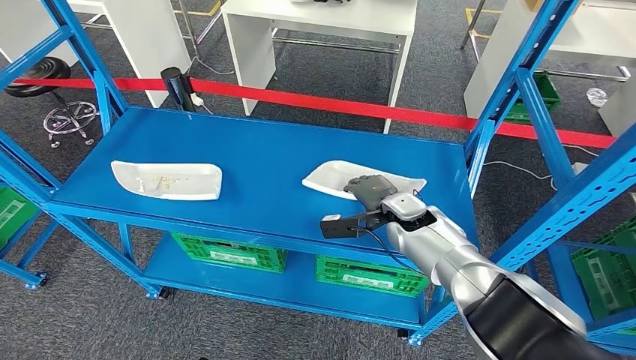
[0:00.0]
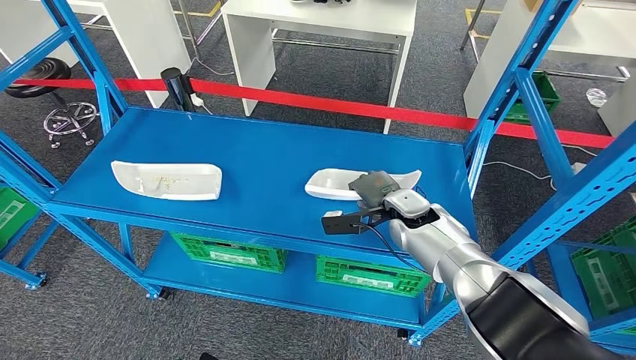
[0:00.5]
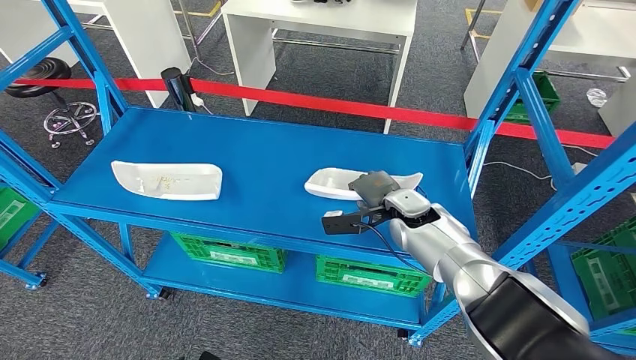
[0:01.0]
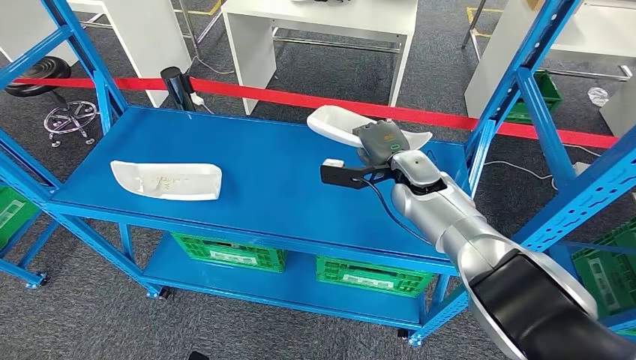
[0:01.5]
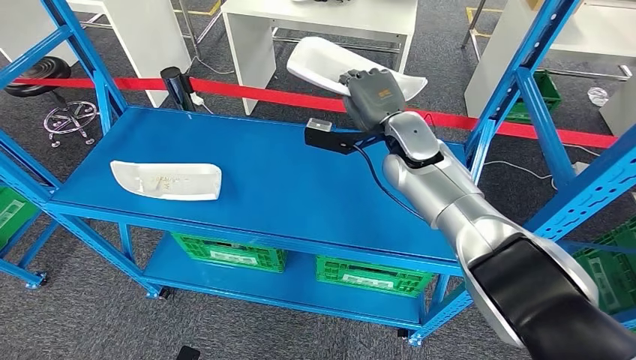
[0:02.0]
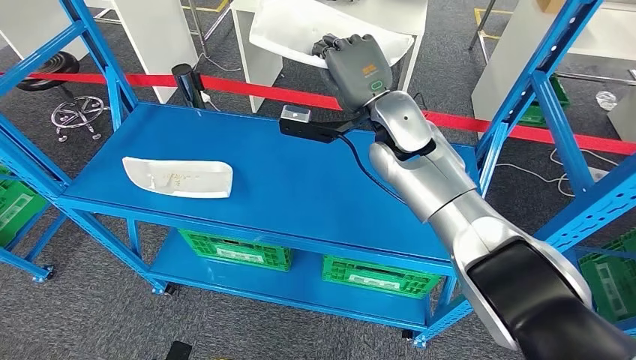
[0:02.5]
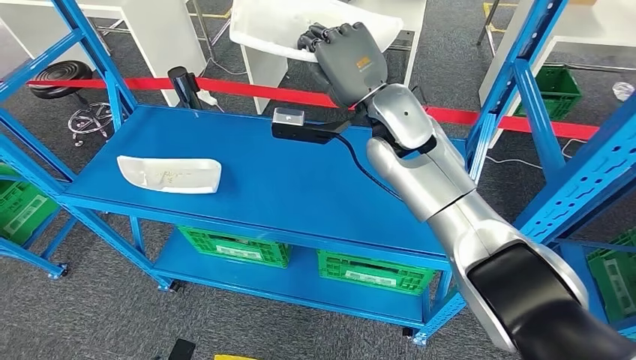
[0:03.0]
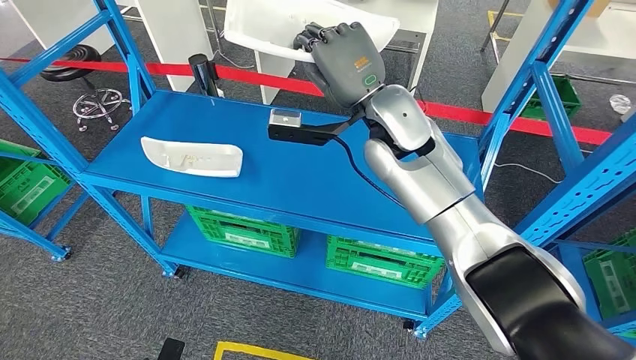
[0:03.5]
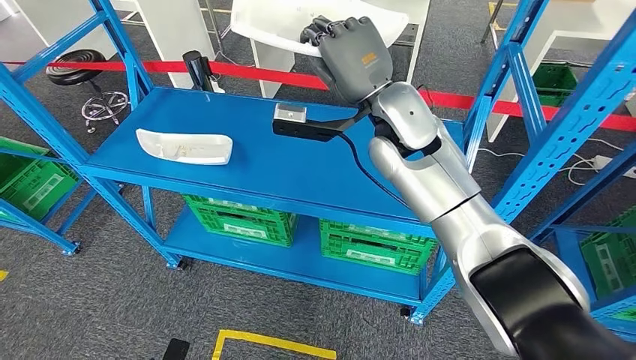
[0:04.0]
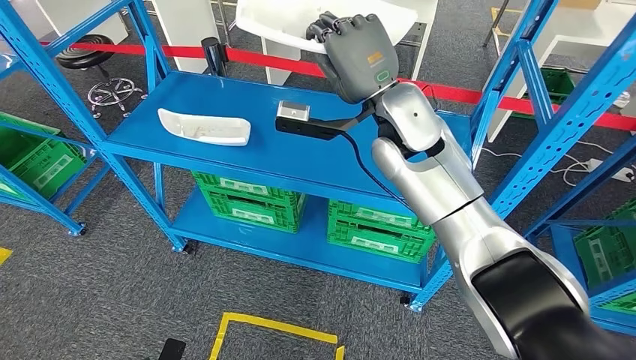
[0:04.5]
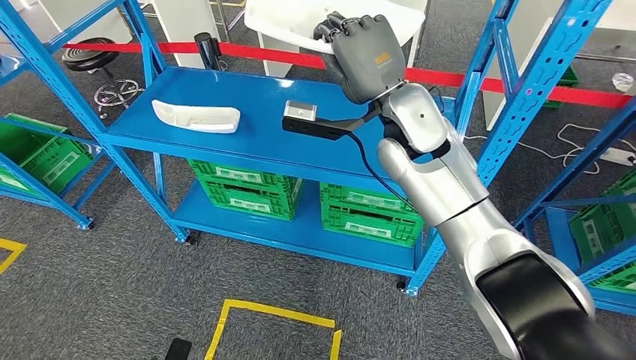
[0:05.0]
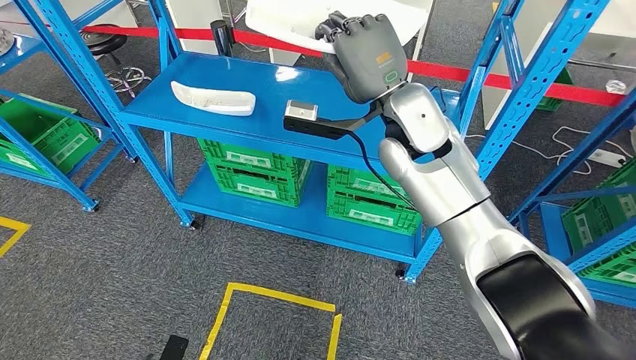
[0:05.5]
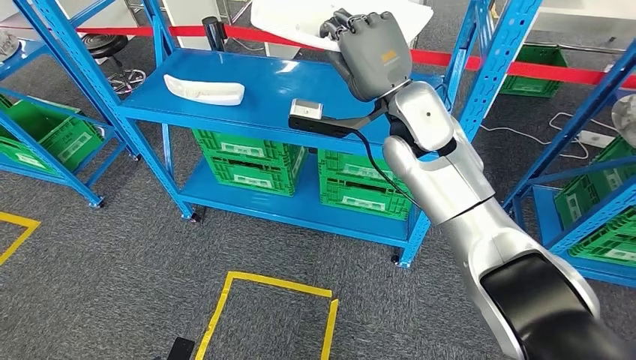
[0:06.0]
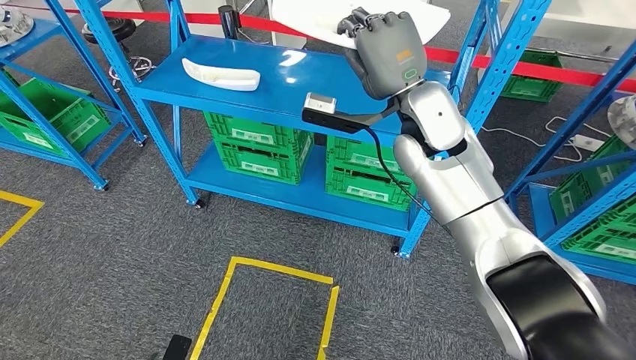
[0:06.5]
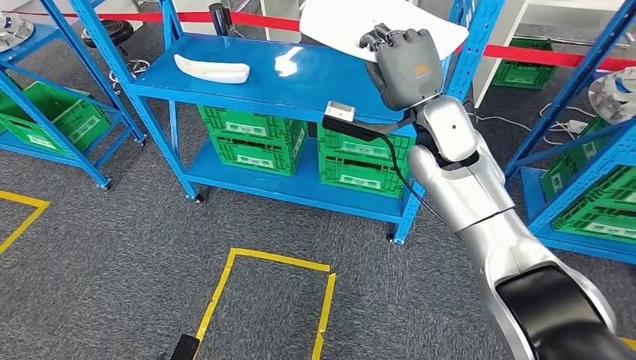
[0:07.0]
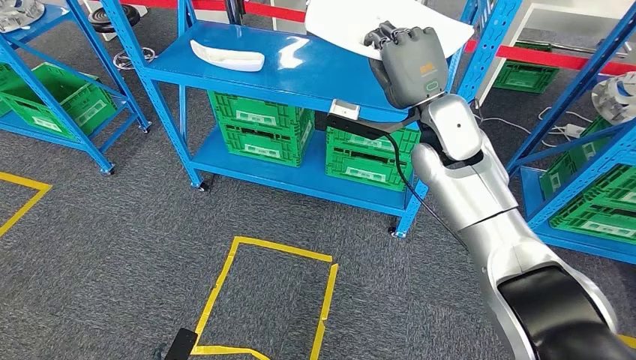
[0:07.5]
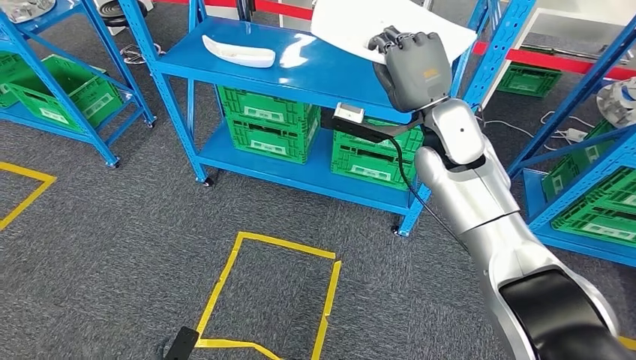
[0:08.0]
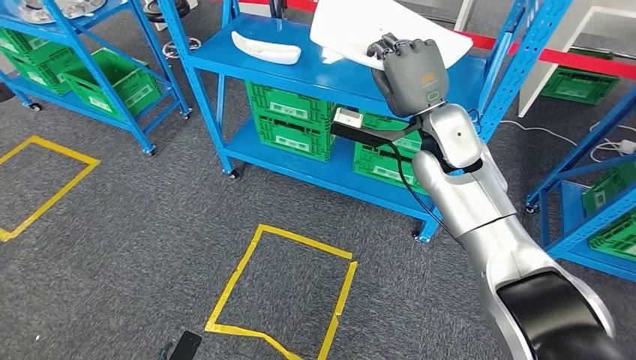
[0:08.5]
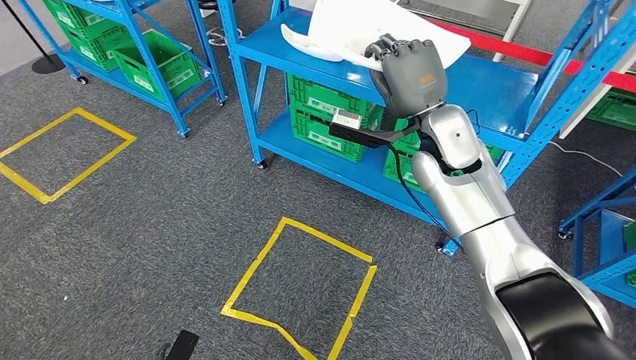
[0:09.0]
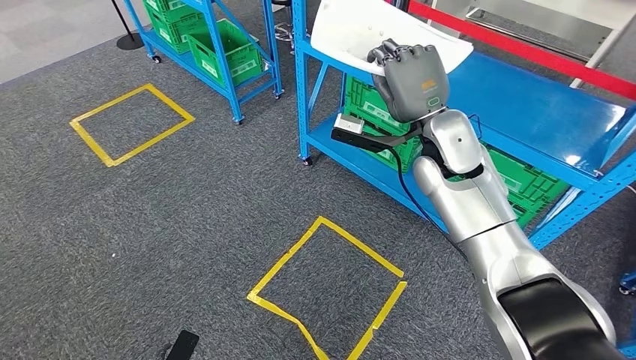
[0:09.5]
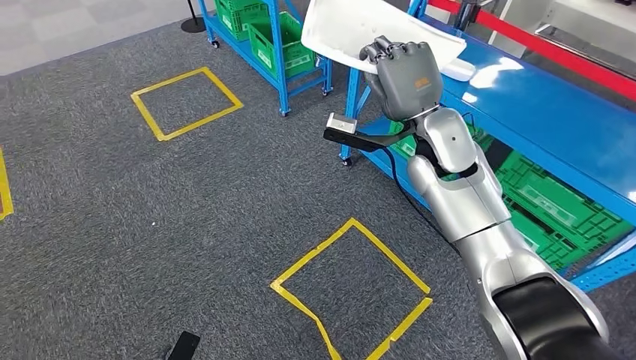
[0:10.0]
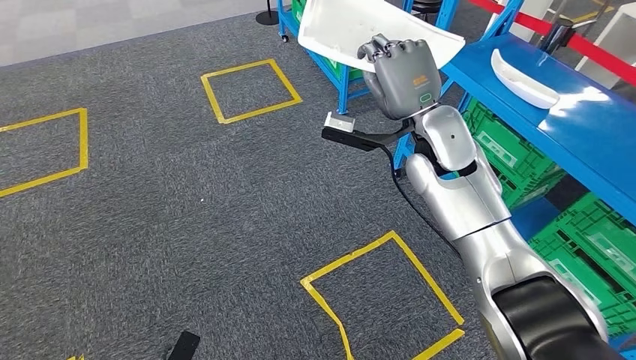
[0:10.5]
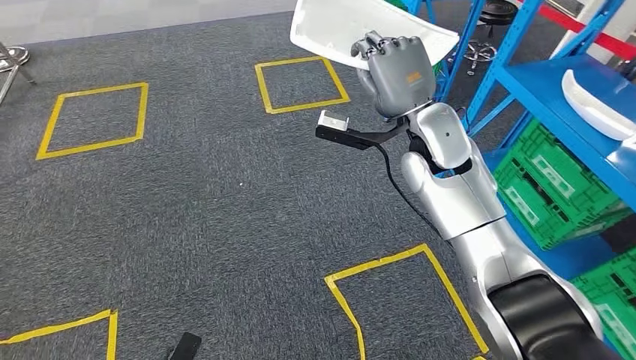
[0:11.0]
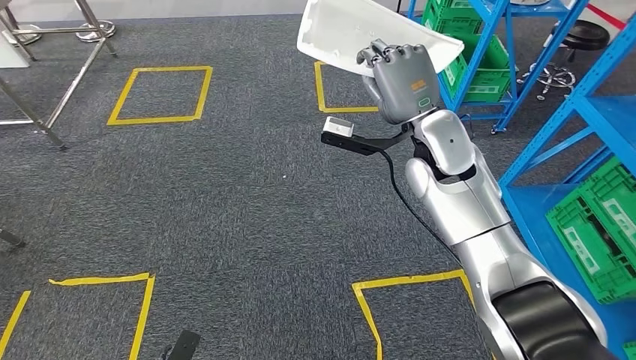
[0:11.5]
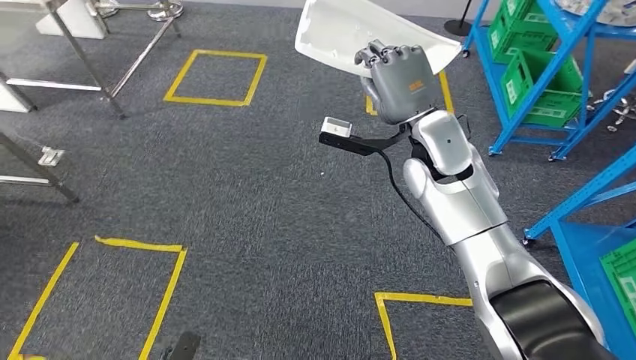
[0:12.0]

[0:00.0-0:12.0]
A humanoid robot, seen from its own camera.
Step, 0:00.0 to 0:02.0: Pick up the small component from the shelf.
0:00.0 to 0:02.0: The right hand shifts approximately 15 cm upward and forward.

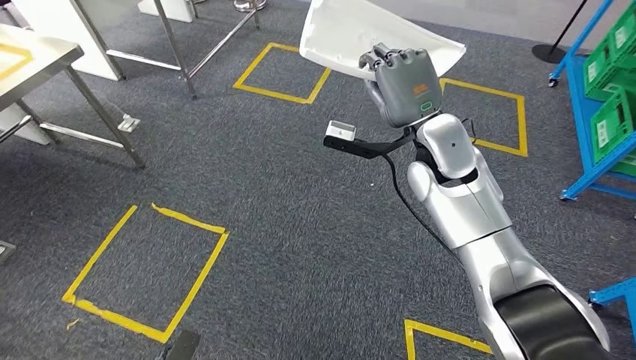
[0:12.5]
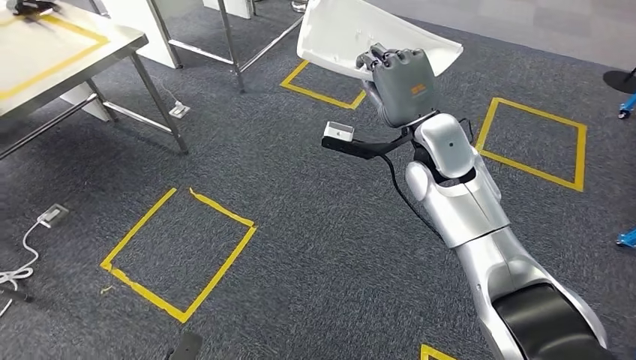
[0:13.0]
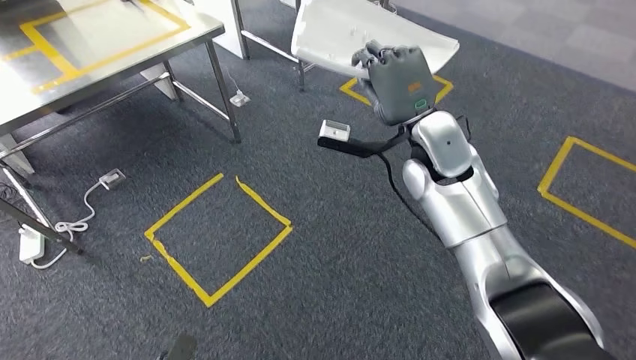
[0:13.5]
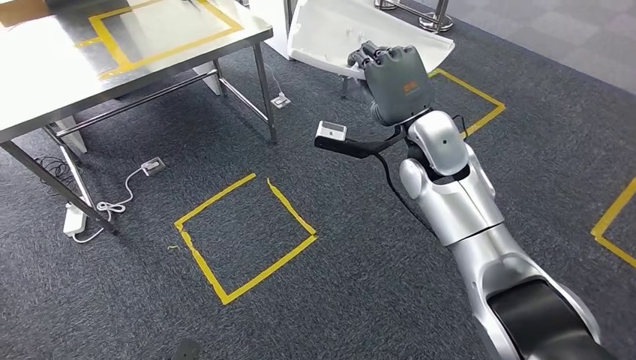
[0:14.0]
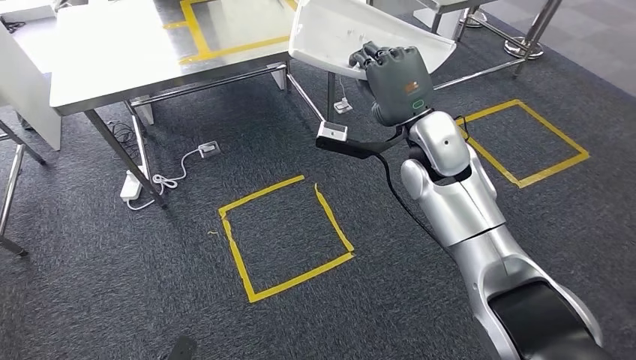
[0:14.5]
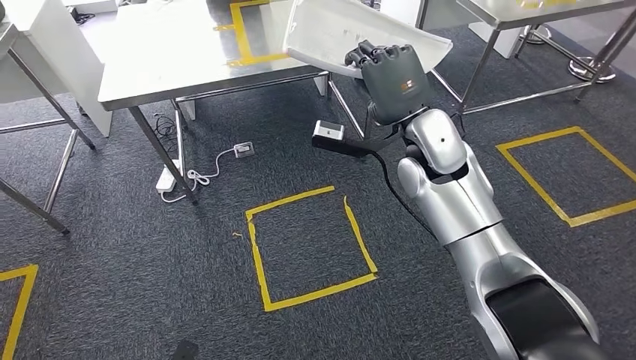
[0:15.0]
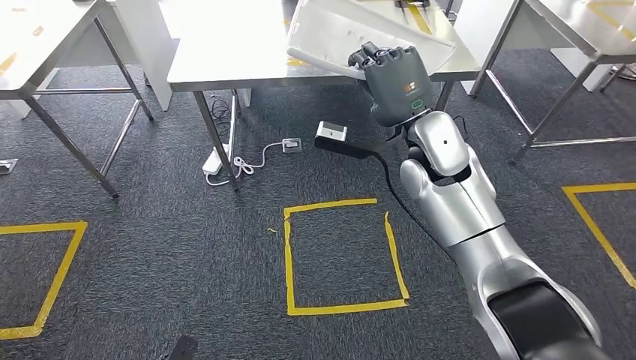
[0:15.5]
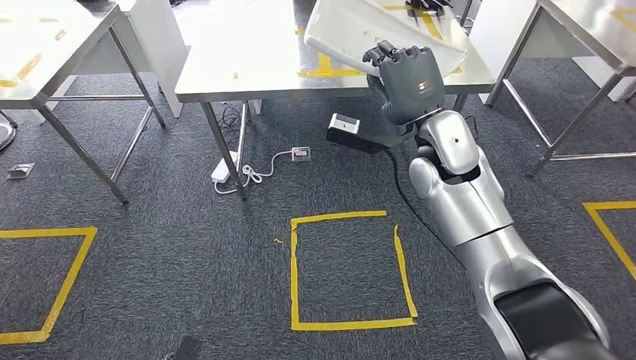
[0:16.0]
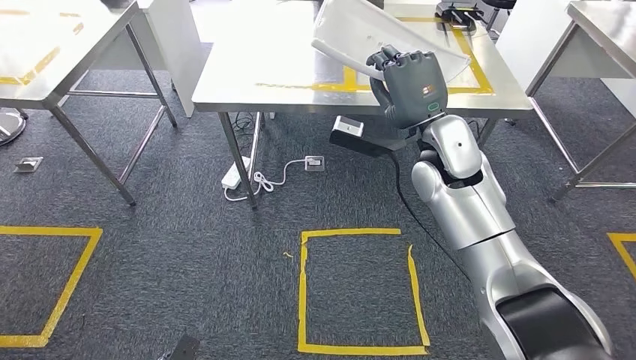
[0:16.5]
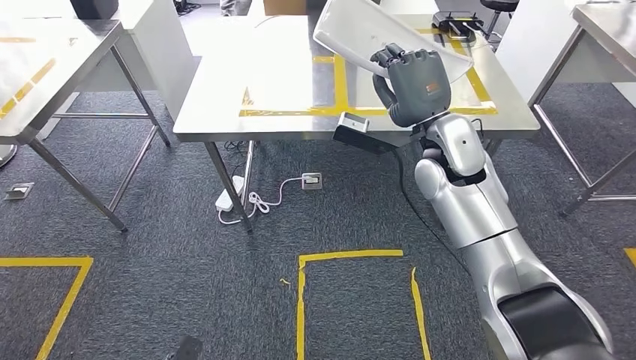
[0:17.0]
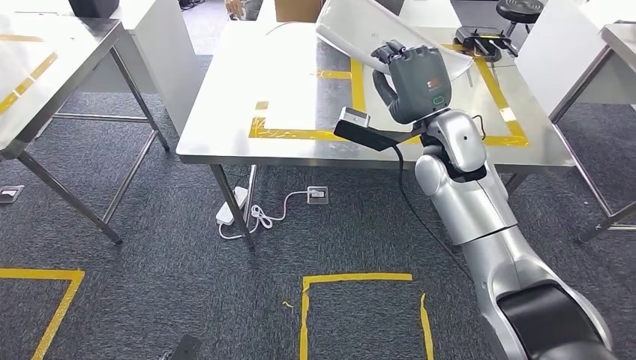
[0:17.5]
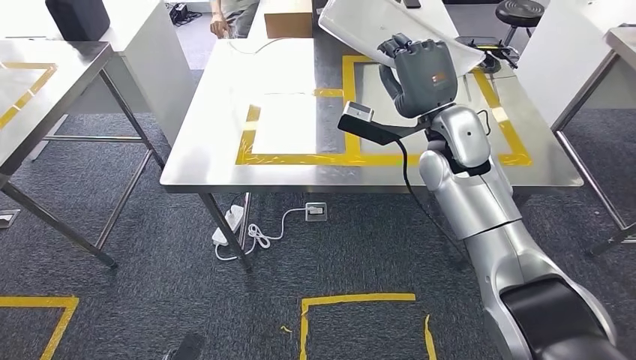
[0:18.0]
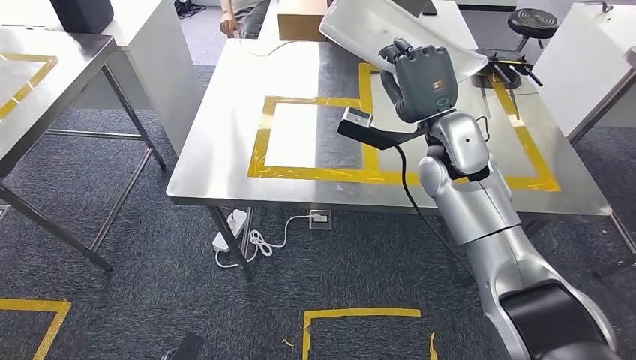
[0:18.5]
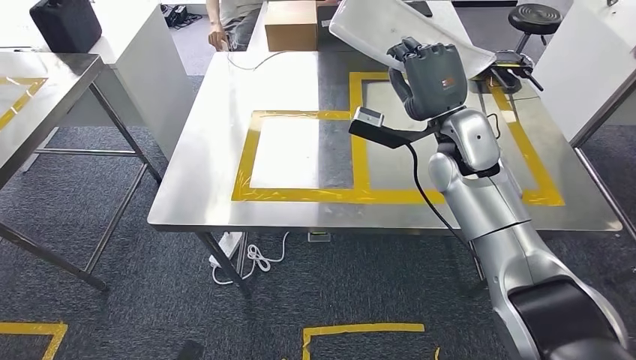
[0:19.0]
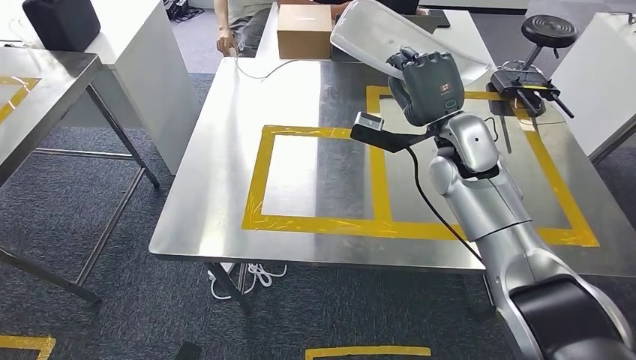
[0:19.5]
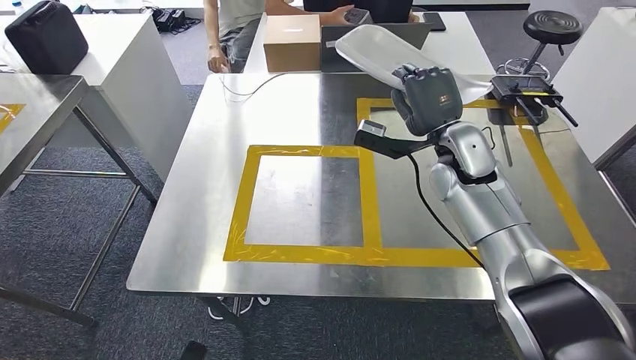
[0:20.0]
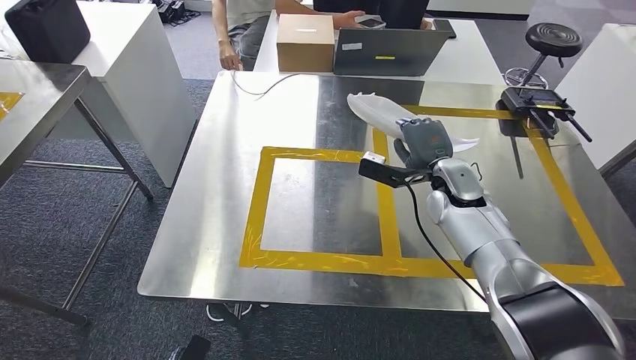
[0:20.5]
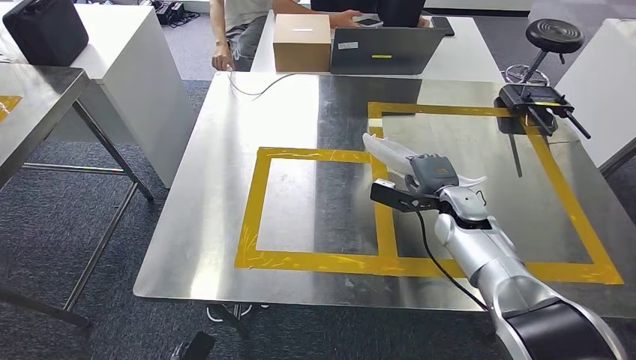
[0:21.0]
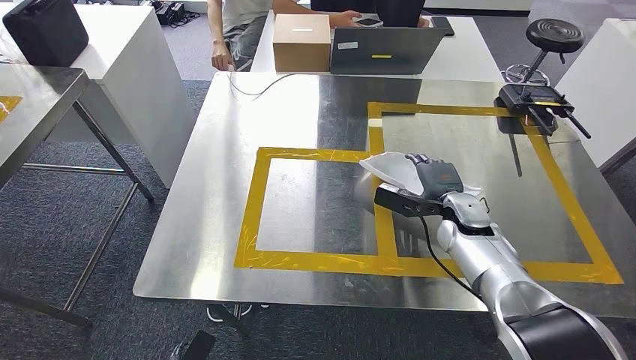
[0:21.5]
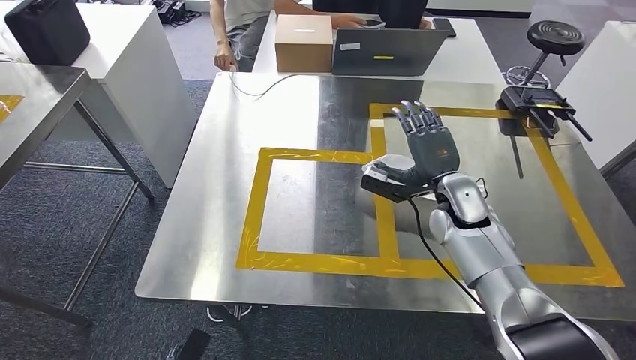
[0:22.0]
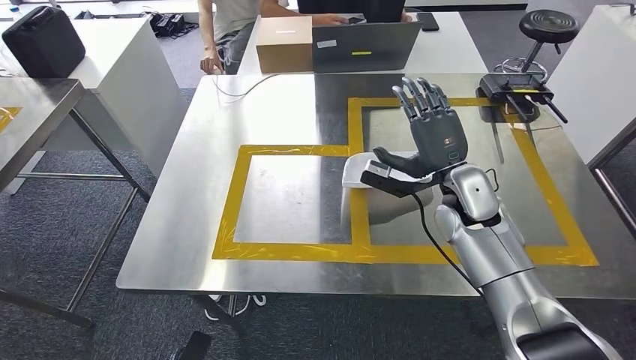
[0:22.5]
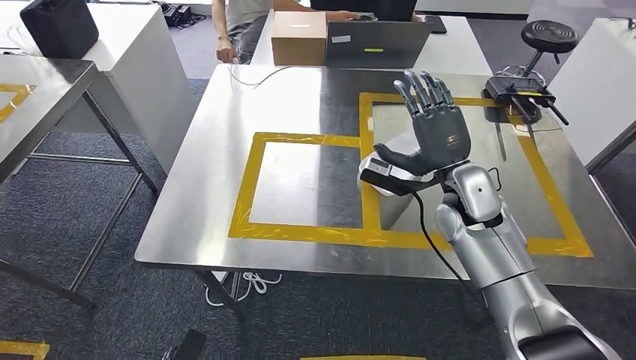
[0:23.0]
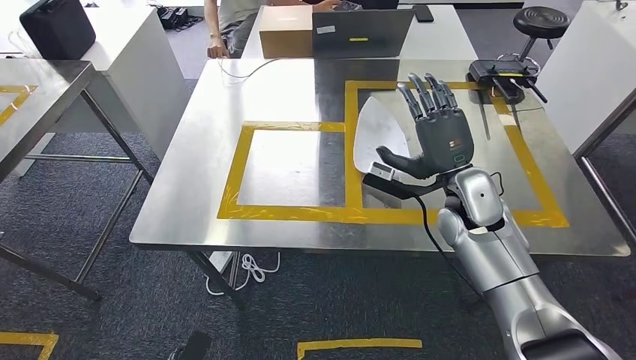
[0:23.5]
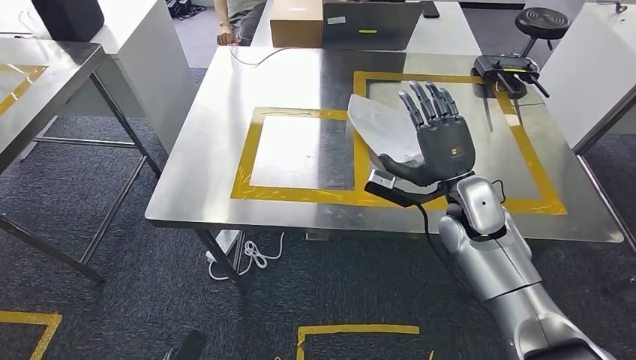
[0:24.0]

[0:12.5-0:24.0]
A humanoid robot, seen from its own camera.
Step, 0:14.5 to 0:23.0: Insert the small component into the corresponding slot on the workbench.